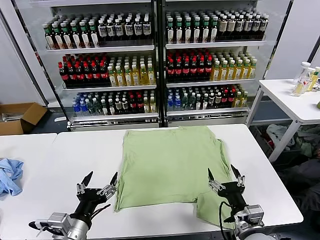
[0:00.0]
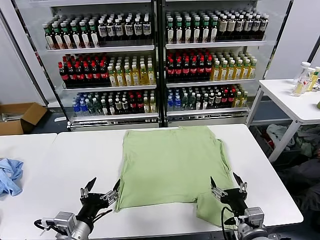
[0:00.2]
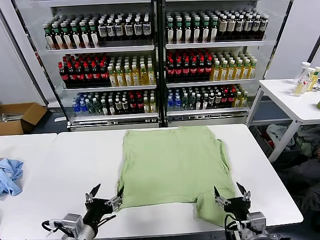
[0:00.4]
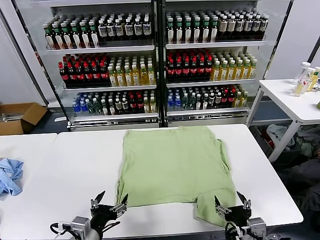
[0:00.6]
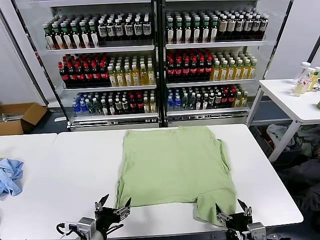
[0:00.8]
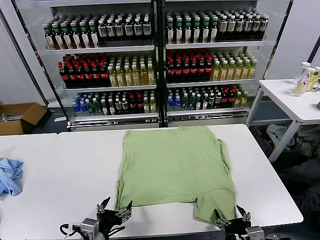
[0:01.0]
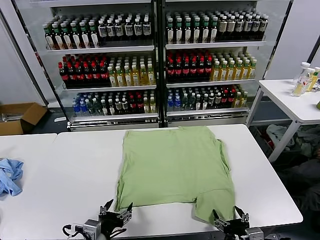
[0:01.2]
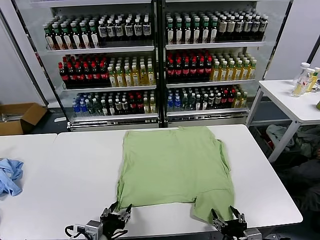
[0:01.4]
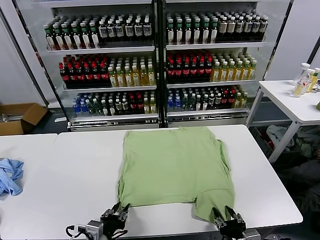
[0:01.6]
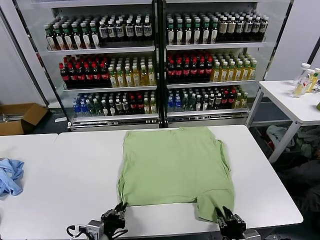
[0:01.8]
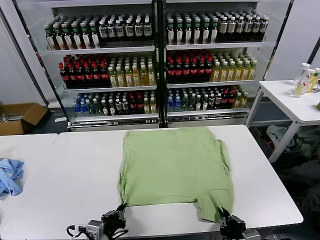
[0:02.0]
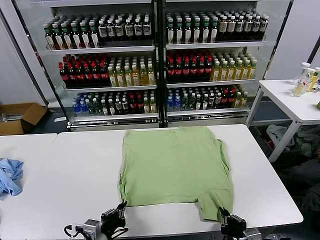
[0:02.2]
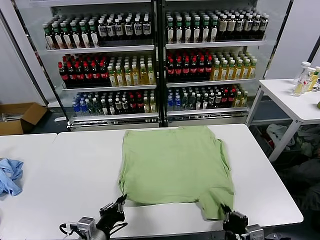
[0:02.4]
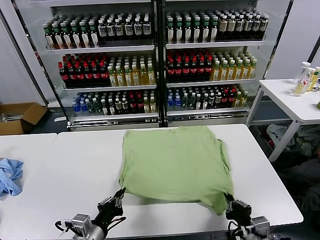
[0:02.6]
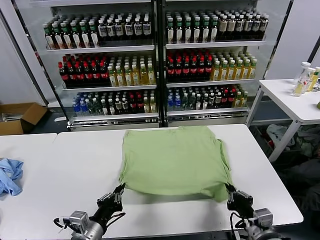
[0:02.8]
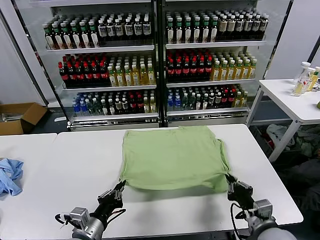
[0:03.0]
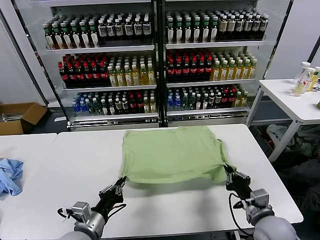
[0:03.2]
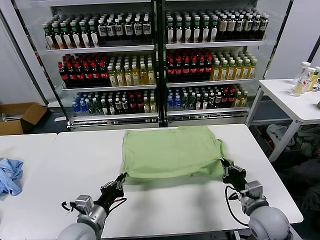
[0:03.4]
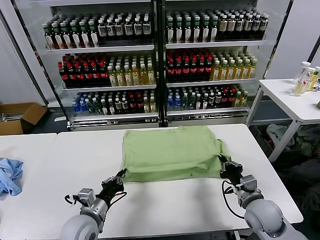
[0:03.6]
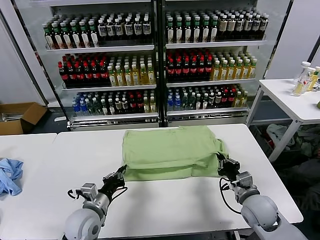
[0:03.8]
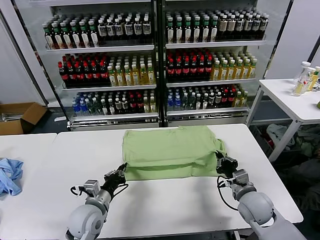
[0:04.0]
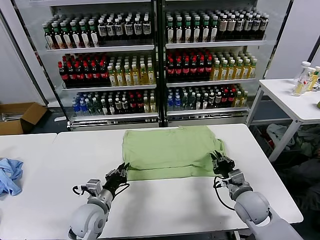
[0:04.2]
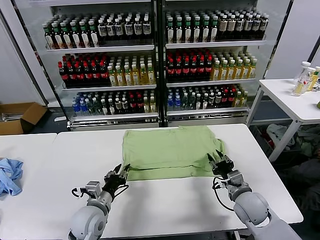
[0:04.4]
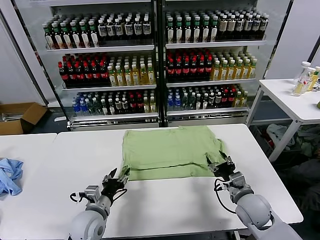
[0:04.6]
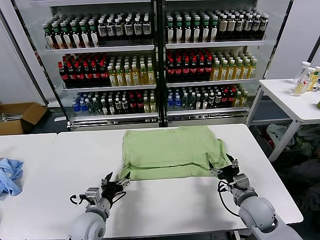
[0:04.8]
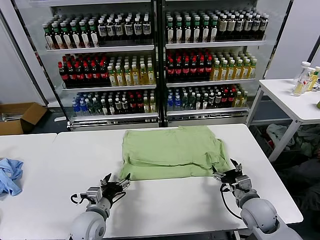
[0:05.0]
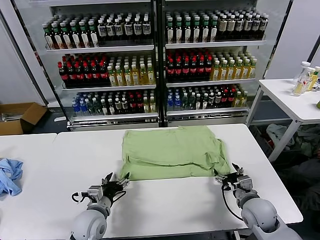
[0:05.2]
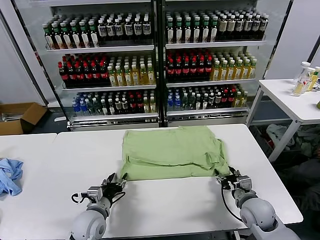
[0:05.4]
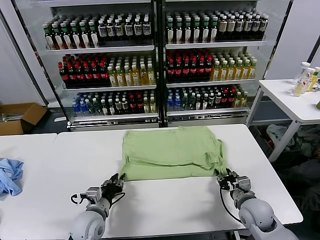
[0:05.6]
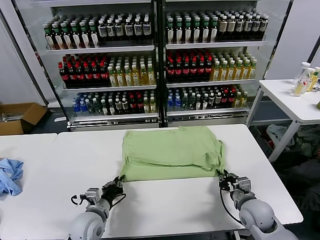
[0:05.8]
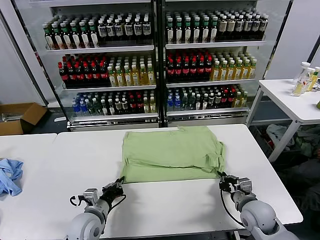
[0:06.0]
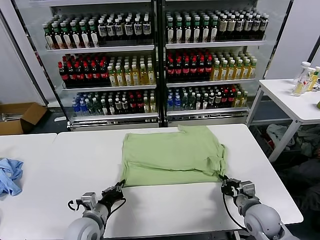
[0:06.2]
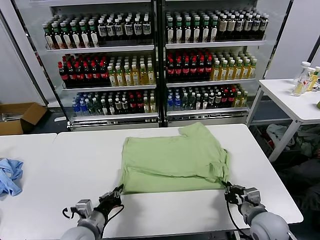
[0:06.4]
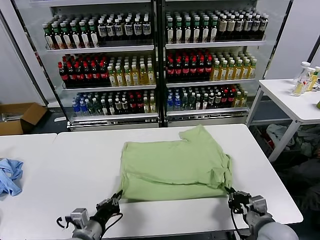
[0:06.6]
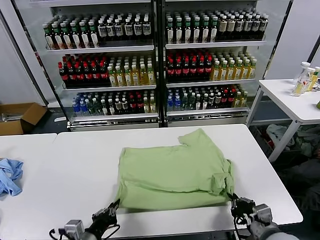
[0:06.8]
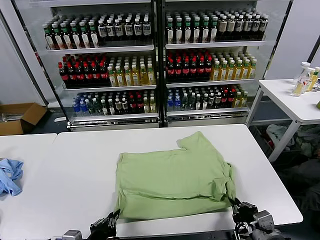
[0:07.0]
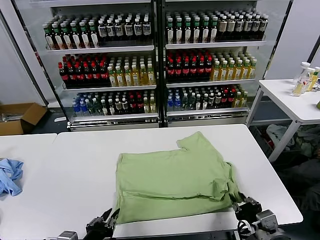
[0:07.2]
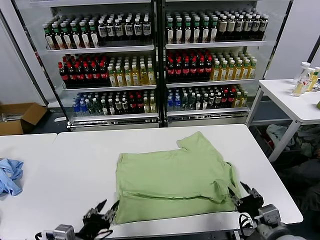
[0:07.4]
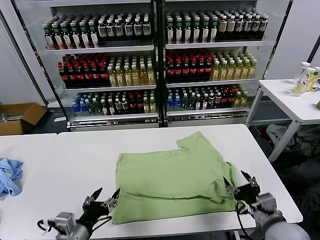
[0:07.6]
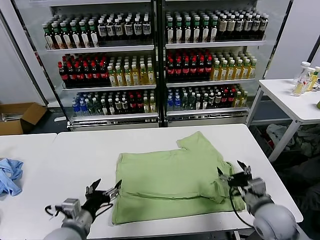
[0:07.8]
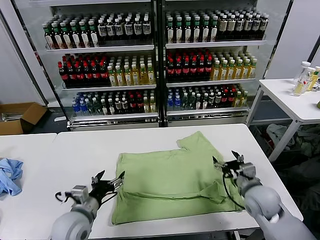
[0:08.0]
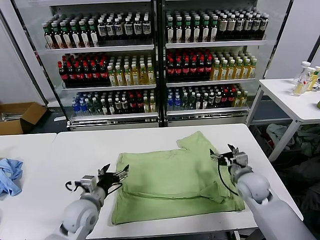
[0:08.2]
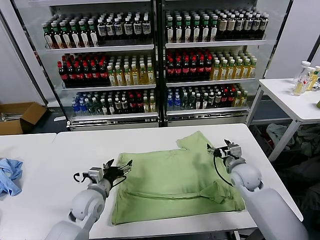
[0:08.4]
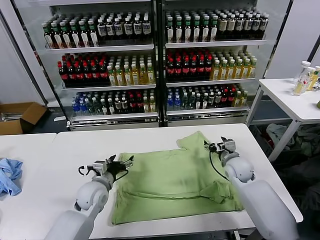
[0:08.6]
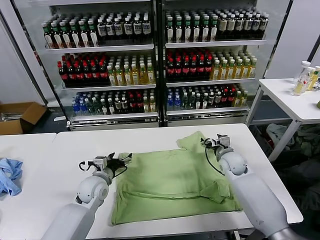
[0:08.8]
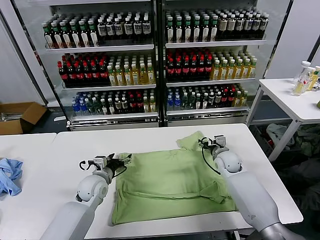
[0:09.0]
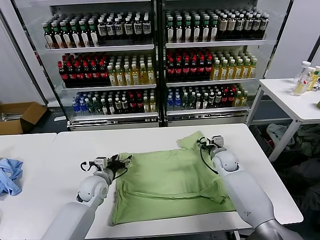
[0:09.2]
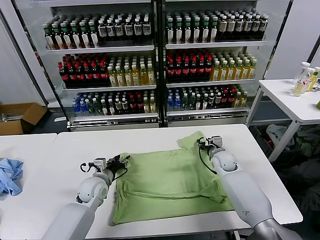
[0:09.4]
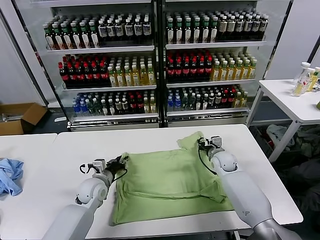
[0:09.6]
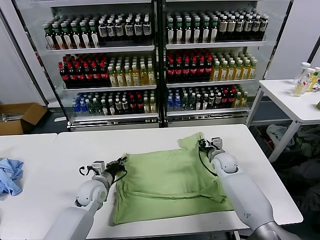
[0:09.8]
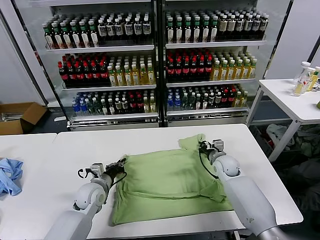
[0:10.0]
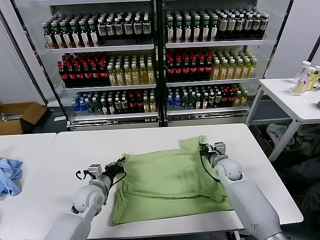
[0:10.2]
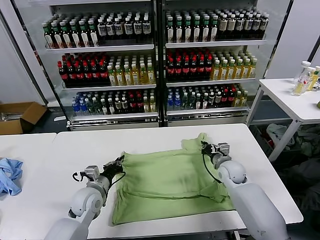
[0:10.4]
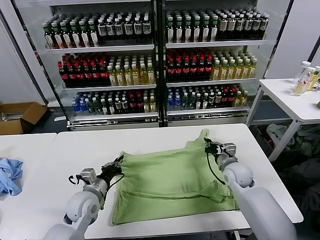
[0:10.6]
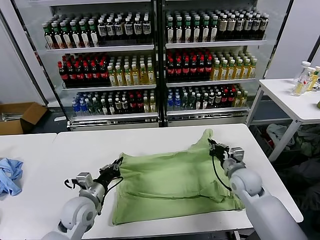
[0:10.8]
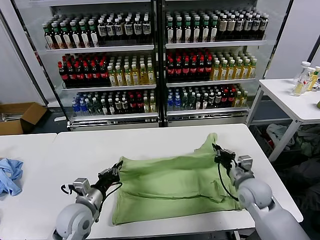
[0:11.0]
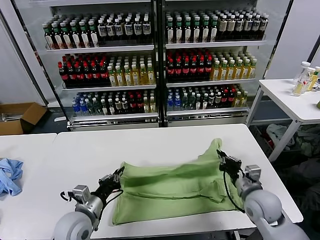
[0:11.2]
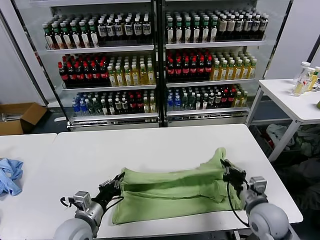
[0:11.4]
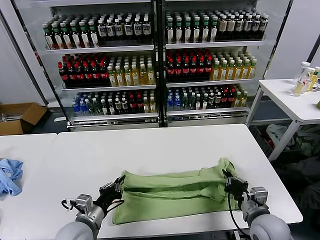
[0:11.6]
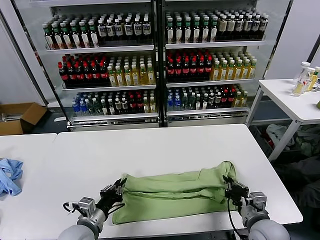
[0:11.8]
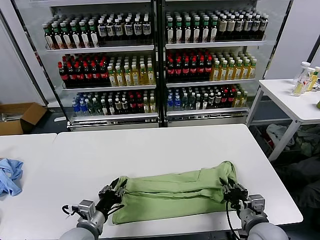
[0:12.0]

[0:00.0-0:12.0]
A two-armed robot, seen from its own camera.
Task of the whole recording: fold and organize the clothes.
Step, 0:00.0 to 0:02.2: use both grippers simultaneously to clamp the lower edge of the clothing fabric.
Step, 0:02.4 to 0:04.4: use both grippers to drag the lower edge of the fabric forward and fold it over the upper edge.
Step, 0:04.8 to 0:07.2: Drag the clothes downward with both gripper.
Step, 0:07.4 to 0:09.8: use both grippers simultaneously to clamp the upper edge of the clothing fabric.
0:01.6 to 0:03.0: The right gripper is displaced forward and upward by roughly 10 cm, and closes up, while the left gripper closes up.
0:03.0 to 0:04.4: The grippers both shift forward by approximately 10 cm. The right gripper opens up; the left gripper opens its fingers.
0:04.4 to 0:06.0: The right gripper closes up, while the left gripper closes its fingers.
0:06.0 to 0:07.6: The left gripper shifts some 15 cm backward and upward, and opens its fingers, while the right gripper goes about 10 cm upward and backward, and opens up.
0:07.6 to 0:09.0: The grippers both shift forward by roughly 25 cm.
0:09.0 to 0:10.4: The right gripper goes roughly 5 cm backward, and closes its fingers, while the left gripper closes.
0:10.4 to 0:12.0: The left gripper travels backward by roughly 15 cm; the right gripper is displaced backward by approximately 25 cm, and opens.

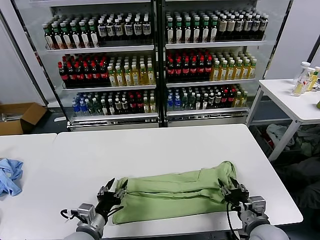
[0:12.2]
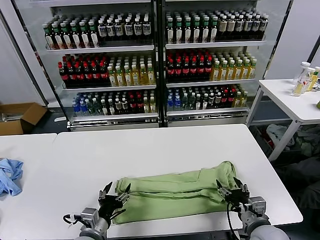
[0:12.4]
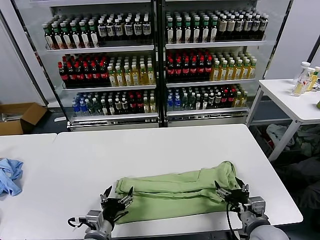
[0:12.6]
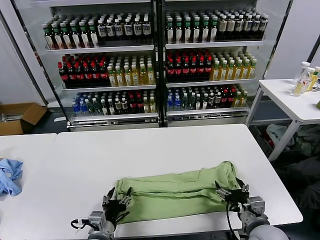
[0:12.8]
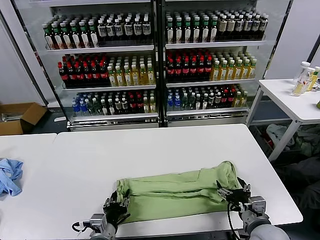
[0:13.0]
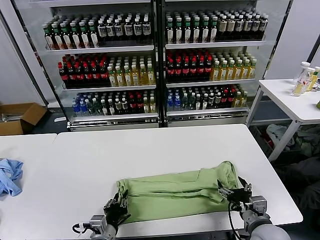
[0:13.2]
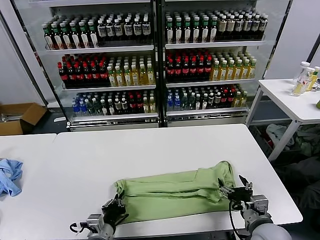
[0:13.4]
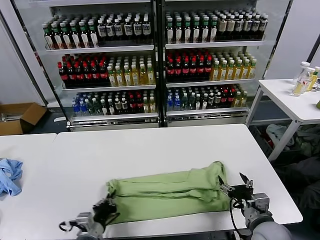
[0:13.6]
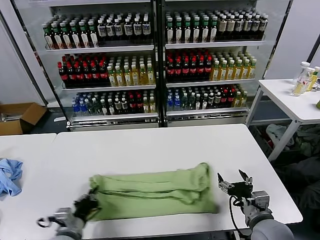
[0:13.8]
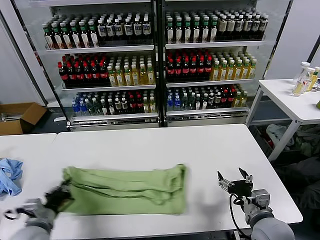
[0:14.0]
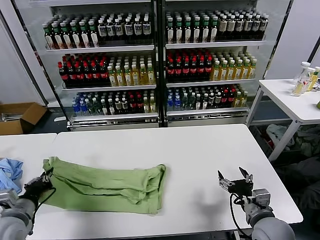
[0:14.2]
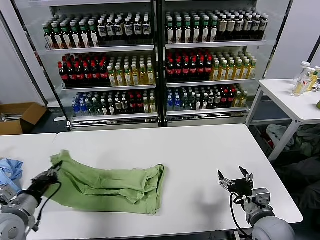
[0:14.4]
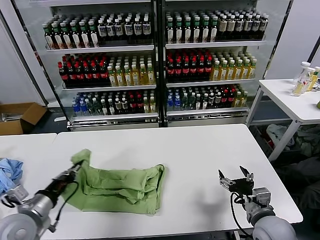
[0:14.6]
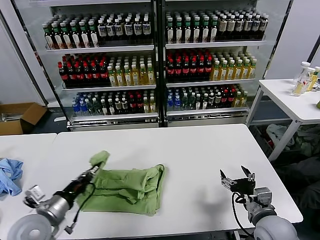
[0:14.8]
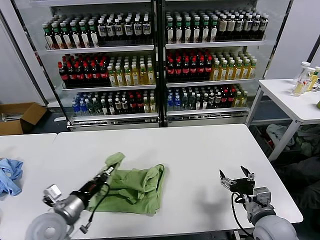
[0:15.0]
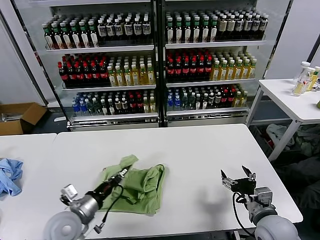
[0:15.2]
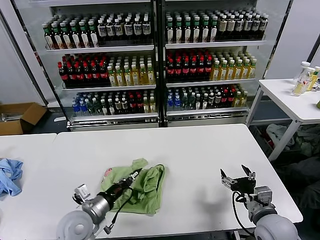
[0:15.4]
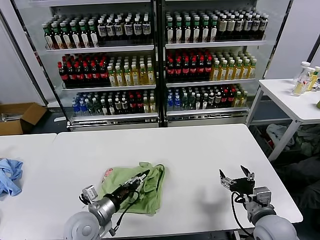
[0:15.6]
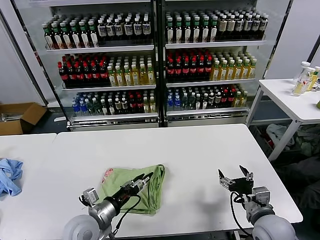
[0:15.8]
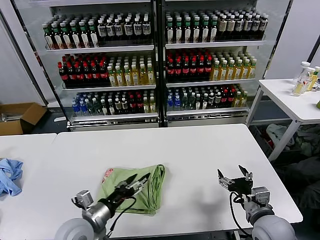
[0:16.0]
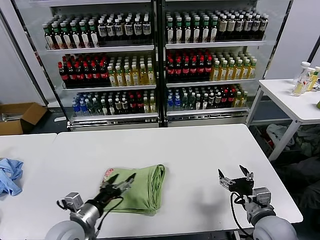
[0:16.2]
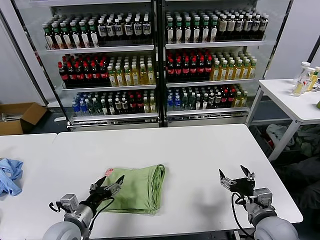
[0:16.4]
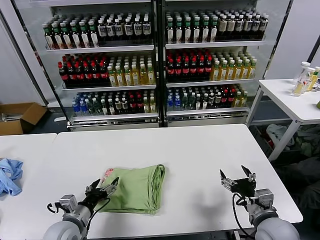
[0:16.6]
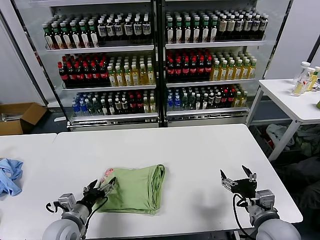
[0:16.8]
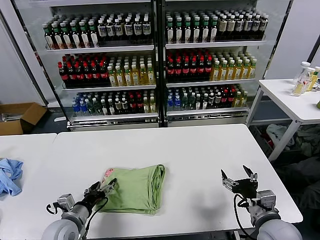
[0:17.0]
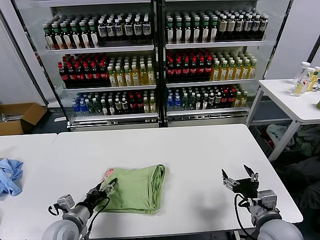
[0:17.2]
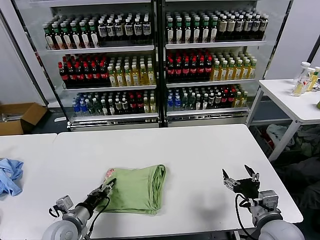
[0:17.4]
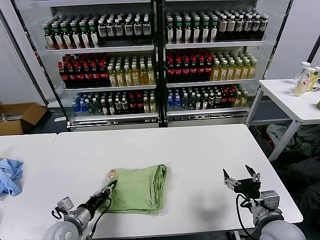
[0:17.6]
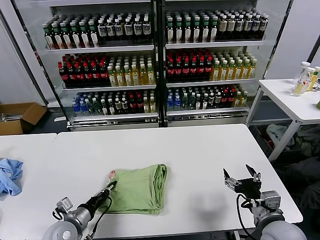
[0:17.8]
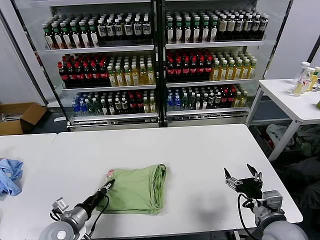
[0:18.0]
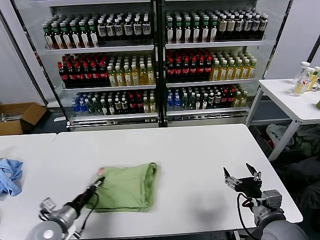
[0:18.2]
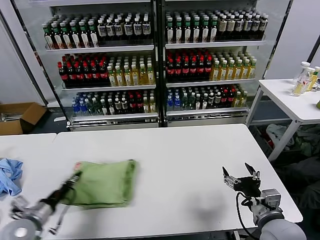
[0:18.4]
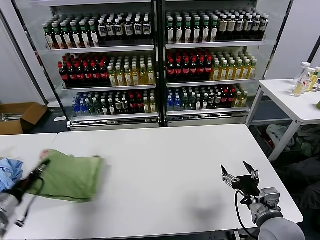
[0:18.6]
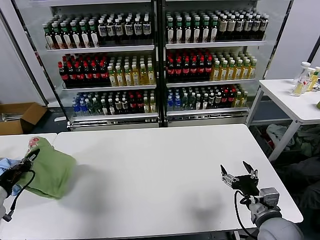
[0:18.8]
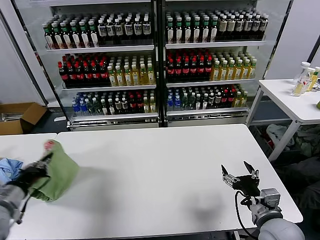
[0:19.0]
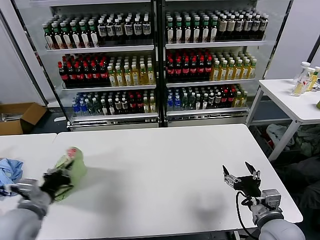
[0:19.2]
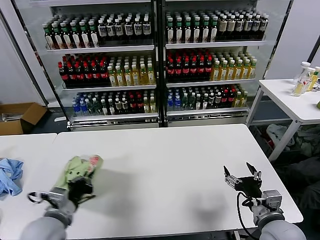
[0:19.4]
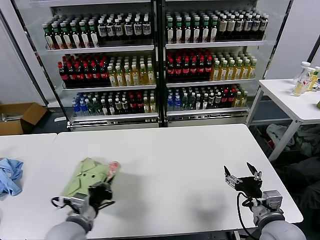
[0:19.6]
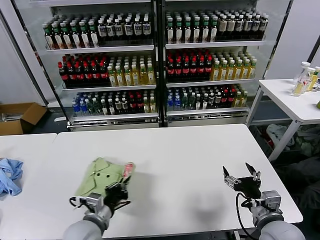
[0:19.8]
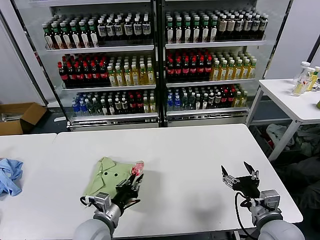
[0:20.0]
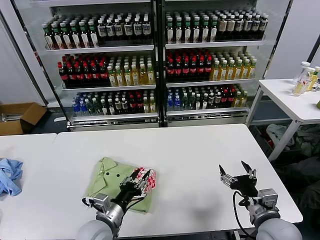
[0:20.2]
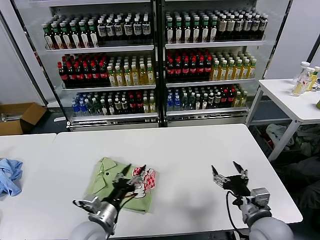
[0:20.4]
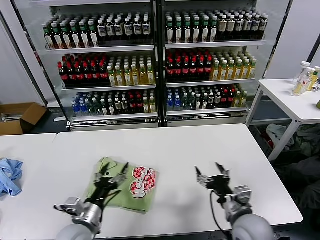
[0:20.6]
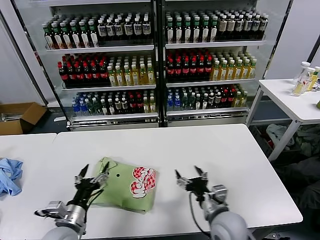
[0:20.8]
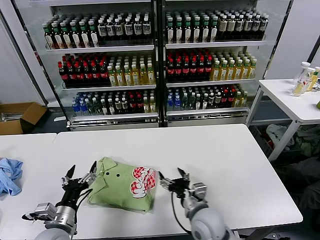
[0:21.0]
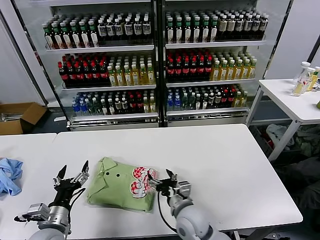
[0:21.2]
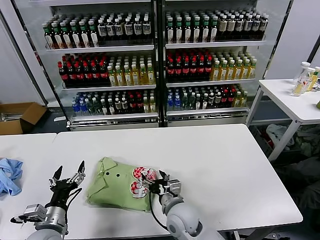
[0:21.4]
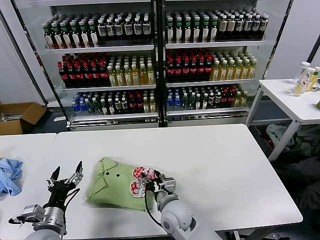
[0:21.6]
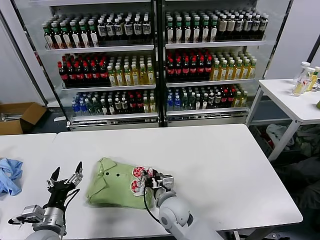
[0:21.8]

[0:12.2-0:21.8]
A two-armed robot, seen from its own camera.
Task of the whole recording: fold and organize the clothes.
Step, 0:12.4 to 0:13.4: use the left gripper to clamp the left edge of the fabric.
Step, 0:13.6 to 0:15.8: use the left gripper to drag the left edge of the fabric to the left and folds it over the right edge.
Step, 0:16.2 to 0:20.2: Flip the folded clothes over with left gripper.
0:12.2 to 0:13.8: The left gripper closes its fingers.
0:13.8 to 0:15.4: The left gripper travels forward by approximately 5 cm, and travels to the left and back again, about 15 cm each way.
0:15.4 to 0:17.0: The left gripper shifts approximately 5 cm to the left, and opens up.
0:17.0 to 0:18.6: The left gripper goes about 20 cm to the left and upward, and closes.
0:18.6 to 0:20.2: The left gripper is displaced to the right by about 25 cm, and opens its fingers.
0:20.2 to 0:21.8: The left gripper heads to the left, covering approximately 15 cm, and opens. Meanwhile the right gripper travels to the left by roughly 25 cm, and closes its fingers.
